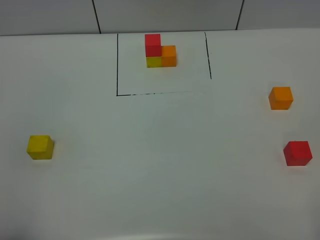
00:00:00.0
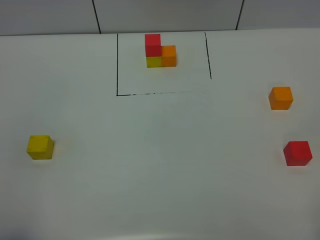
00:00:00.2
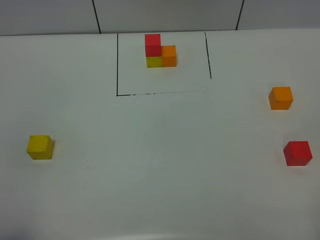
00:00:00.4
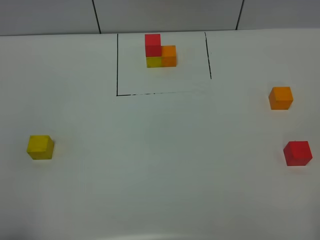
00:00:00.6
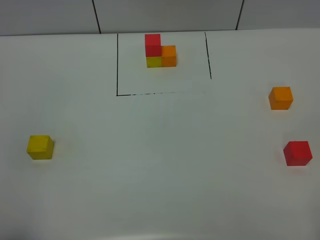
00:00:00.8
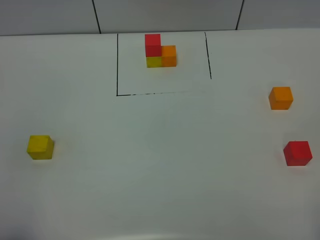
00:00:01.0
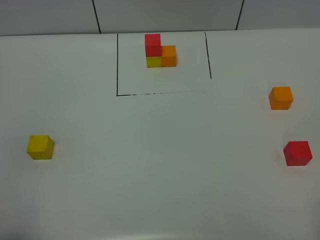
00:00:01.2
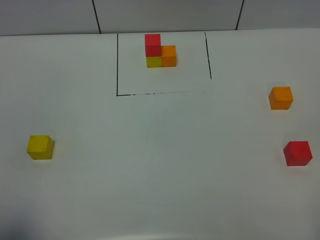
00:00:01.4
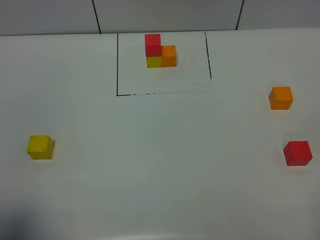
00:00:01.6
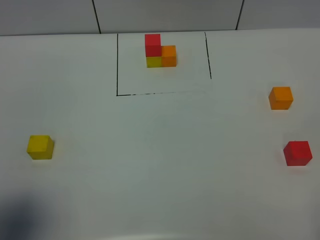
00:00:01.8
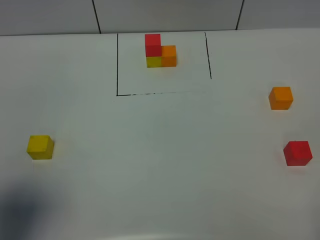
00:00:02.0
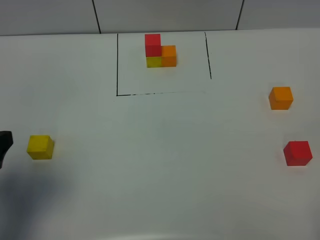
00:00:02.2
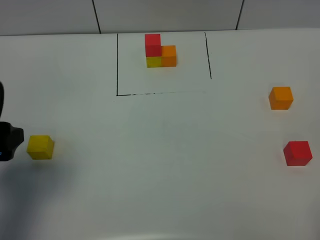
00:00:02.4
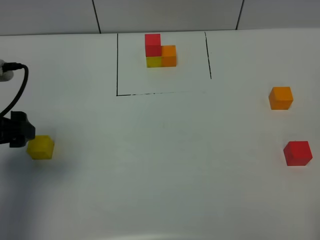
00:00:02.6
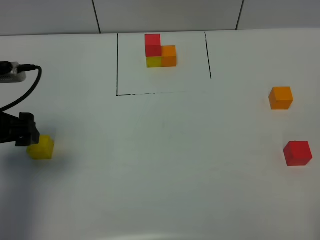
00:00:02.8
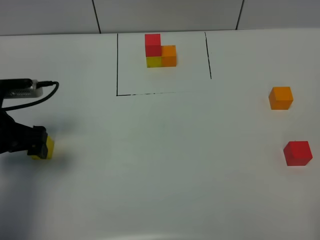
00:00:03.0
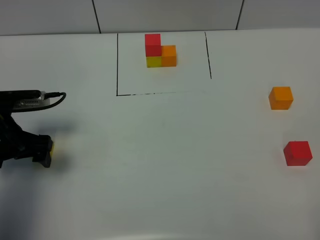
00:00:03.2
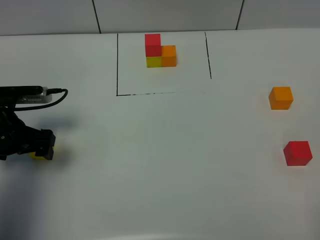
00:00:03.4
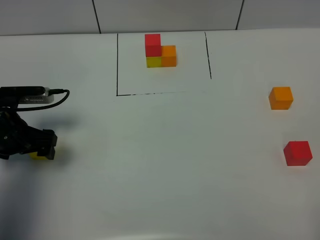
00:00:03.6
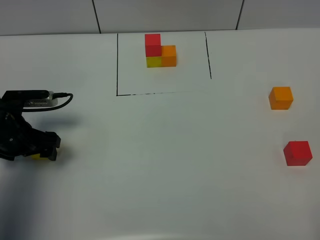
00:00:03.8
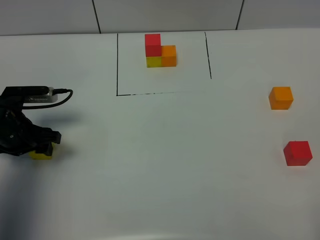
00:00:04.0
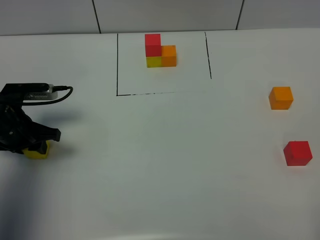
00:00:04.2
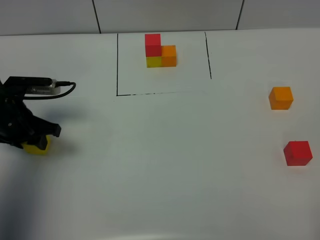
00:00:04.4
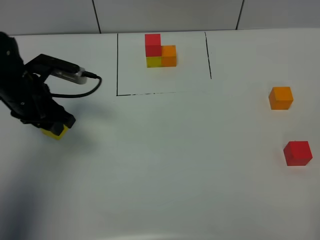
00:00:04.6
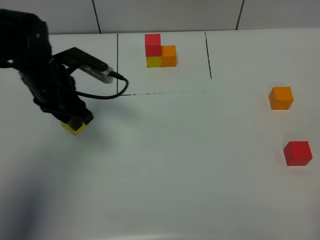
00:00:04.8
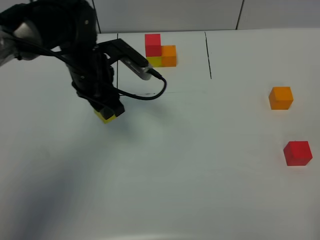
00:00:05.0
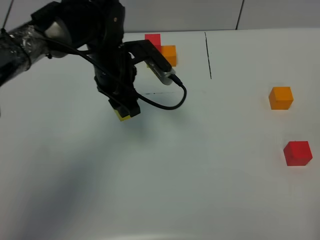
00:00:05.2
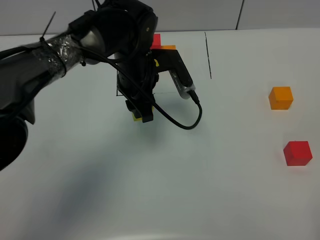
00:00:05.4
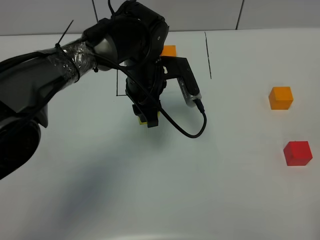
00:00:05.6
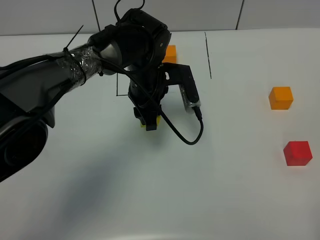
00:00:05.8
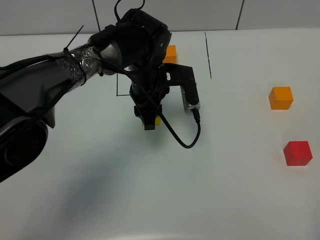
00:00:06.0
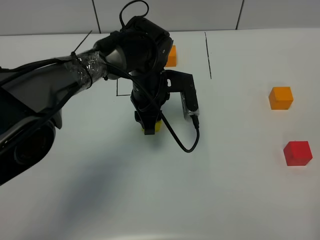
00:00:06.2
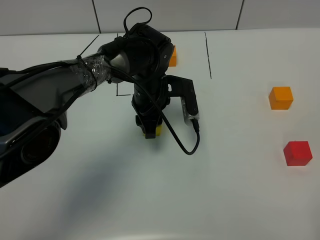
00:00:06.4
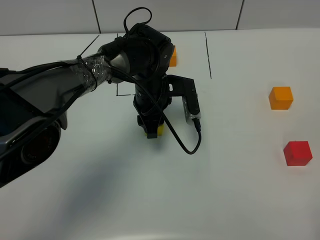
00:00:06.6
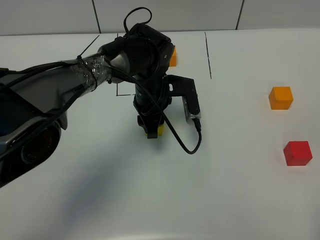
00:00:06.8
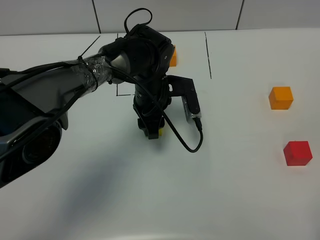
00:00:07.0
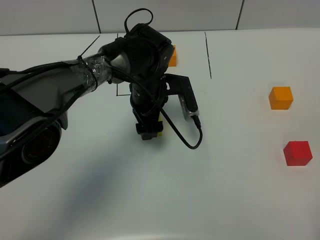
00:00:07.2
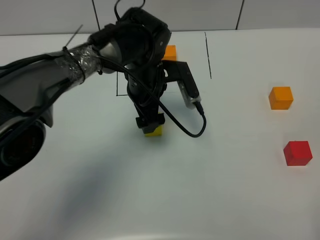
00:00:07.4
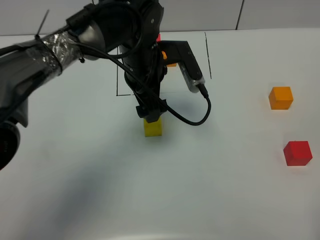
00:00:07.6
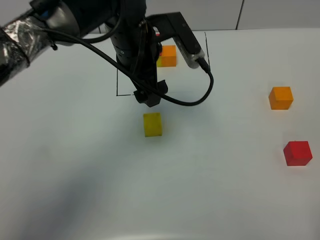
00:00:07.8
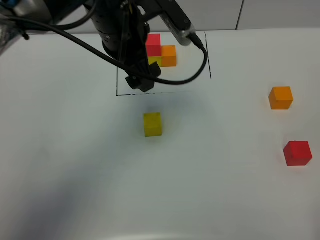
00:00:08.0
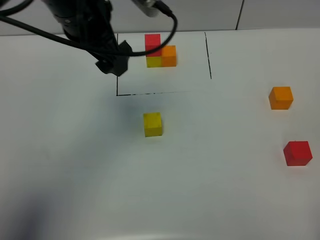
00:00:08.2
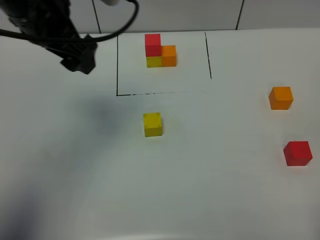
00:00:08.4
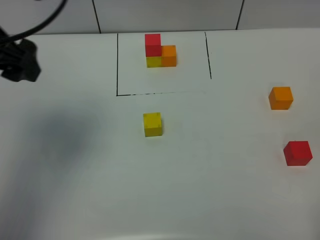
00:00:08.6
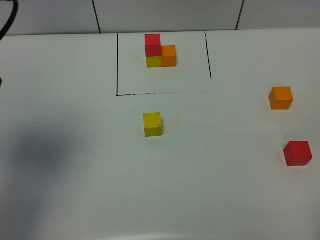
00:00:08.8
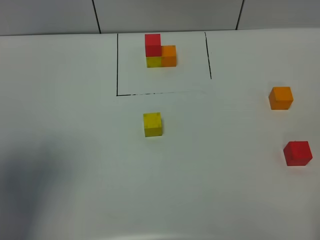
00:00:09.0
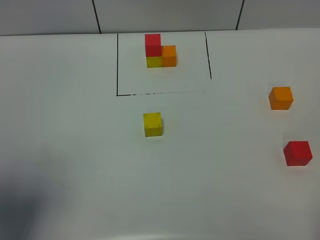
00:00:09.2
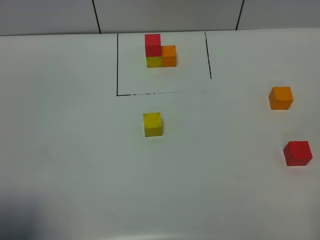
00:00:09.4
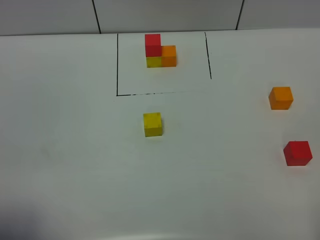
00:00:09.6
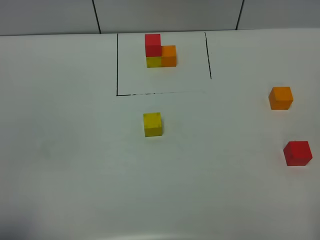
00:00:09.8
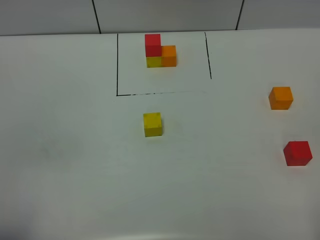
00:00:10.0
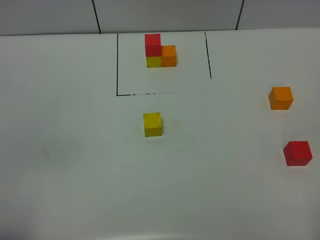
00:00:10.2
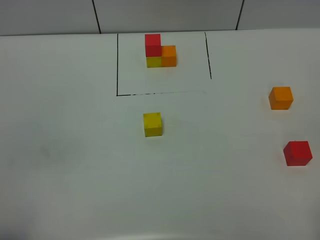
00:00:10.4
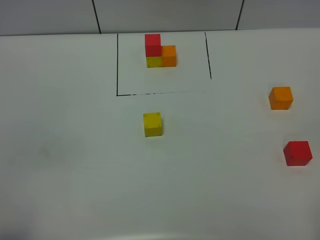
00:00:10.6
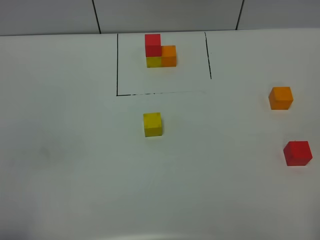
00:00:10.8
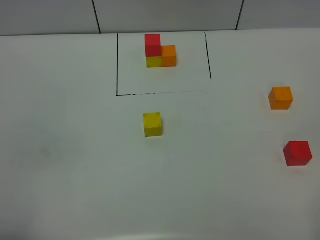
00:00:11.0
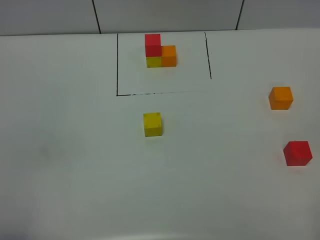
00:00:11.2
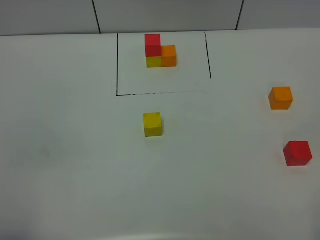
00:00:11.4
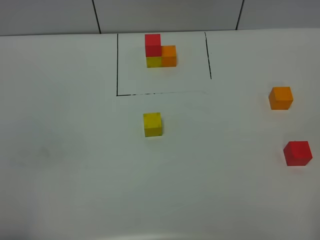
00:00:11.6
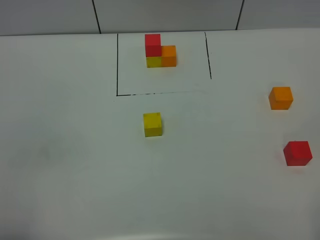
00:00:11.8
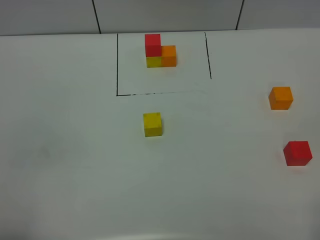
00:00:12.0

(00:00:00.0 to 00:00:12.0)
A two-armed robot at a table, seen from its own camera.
Task of the whole recording: According to the building block template in front, assemble the scattered blocks together.
Step, 00:00:00.0 - 00:00:07.4: Put the yellow build block in the center of the table.
00:00:00.0 - 00:00:01.6: The grippers stay close to where they were, moving slightly.
00:00:01.6 - 00:00:03.0: The left gripper travels forward and downward by roughly 25 cm, and opens.
00:00:03.0 - 00:00:04.4: The left gripper changes place by some 5 cm, and closes up.
00:00:04.4 - 00:00:06.0: The left gripper travels to the right by about 25 cm.
00:00:06.0 - 00:00:07.6: The left gripper is displaced upward by approximately 5 cm, and opens up.
00:00:07.6 - 00:00:09.0: The left gripper travels to the left, backward and upward by about 35 cm.
00:00:09.0 - 00:00:10.4: The left gripper shifts roughly 20 cm backward and downward.

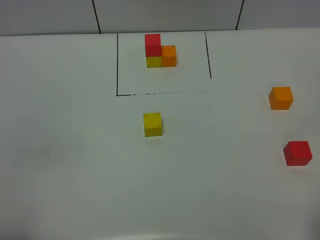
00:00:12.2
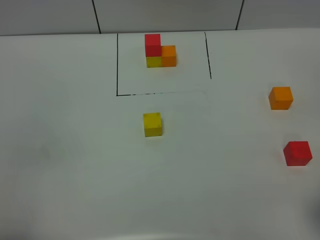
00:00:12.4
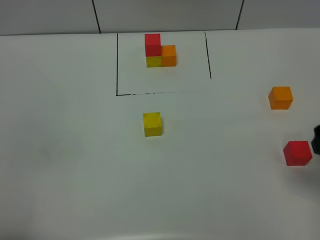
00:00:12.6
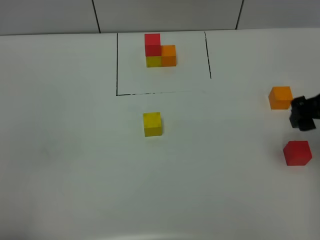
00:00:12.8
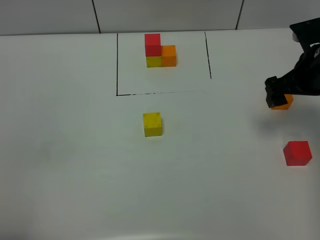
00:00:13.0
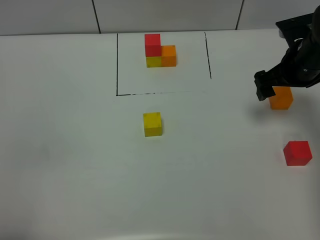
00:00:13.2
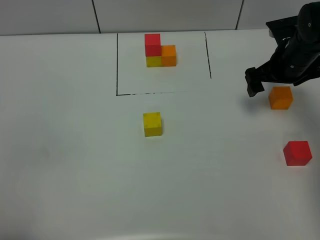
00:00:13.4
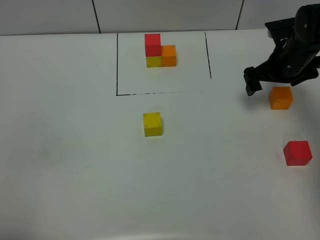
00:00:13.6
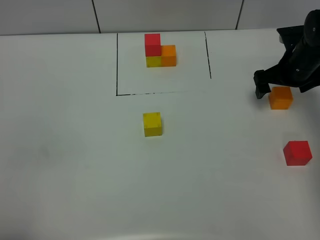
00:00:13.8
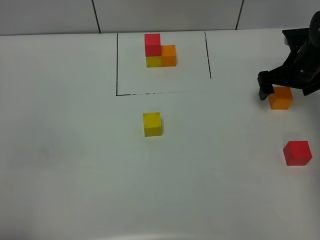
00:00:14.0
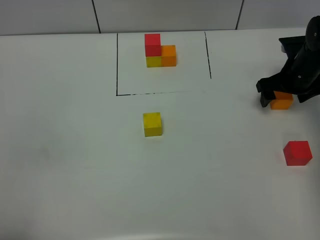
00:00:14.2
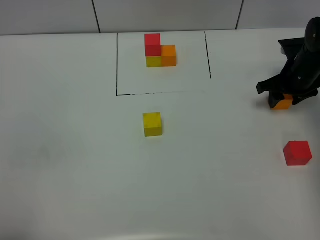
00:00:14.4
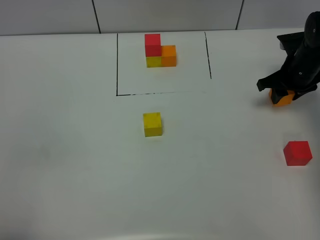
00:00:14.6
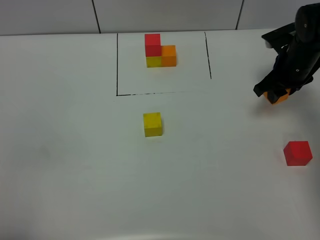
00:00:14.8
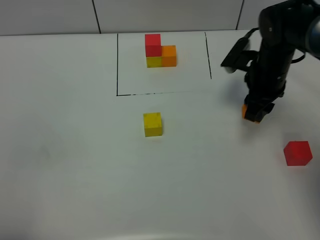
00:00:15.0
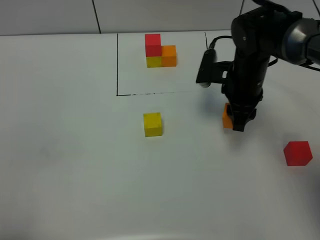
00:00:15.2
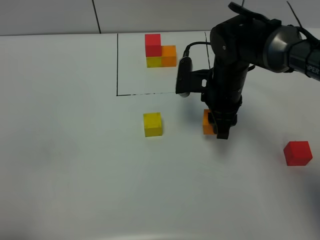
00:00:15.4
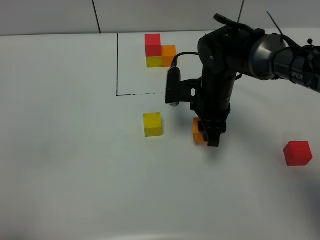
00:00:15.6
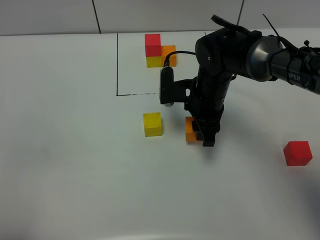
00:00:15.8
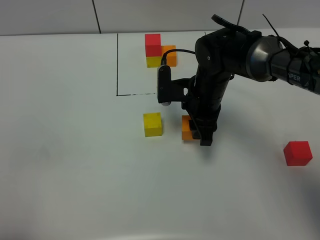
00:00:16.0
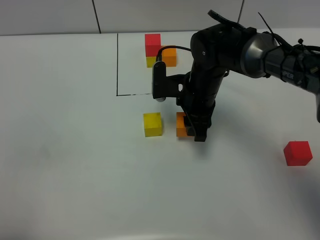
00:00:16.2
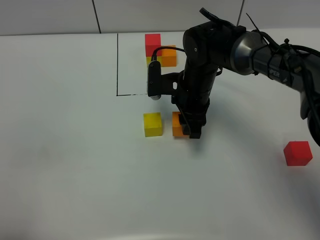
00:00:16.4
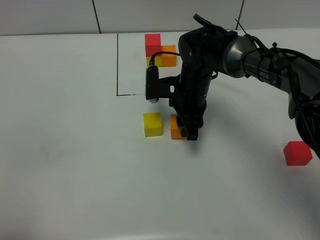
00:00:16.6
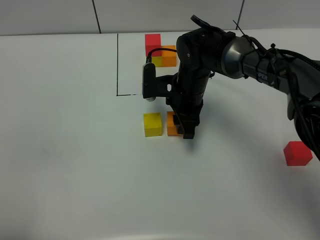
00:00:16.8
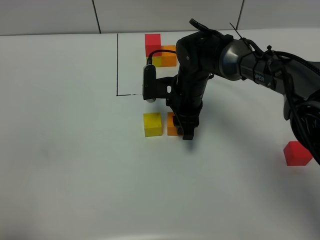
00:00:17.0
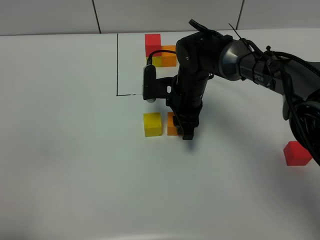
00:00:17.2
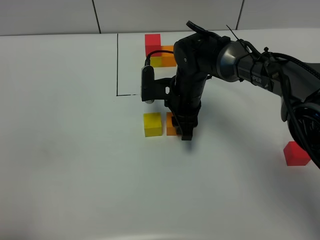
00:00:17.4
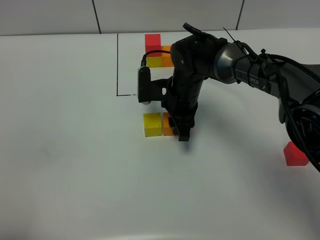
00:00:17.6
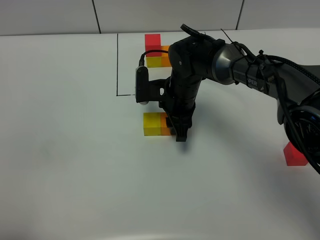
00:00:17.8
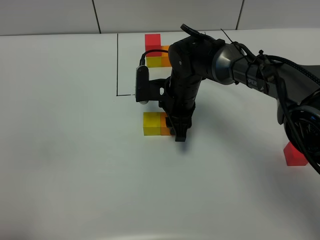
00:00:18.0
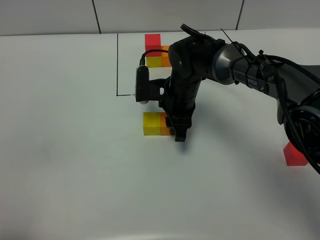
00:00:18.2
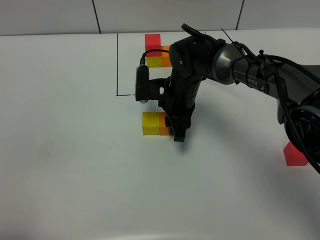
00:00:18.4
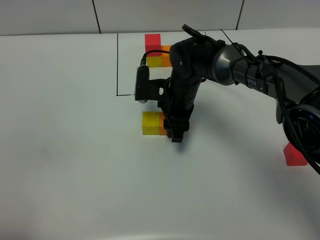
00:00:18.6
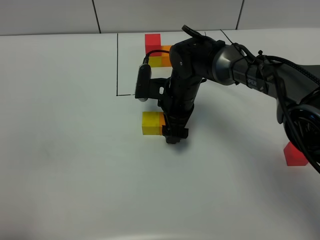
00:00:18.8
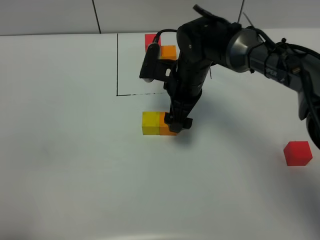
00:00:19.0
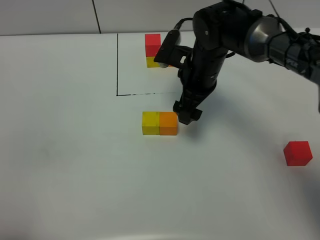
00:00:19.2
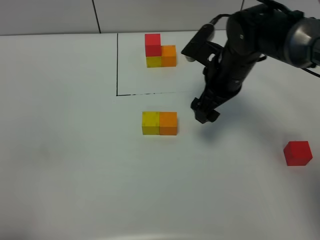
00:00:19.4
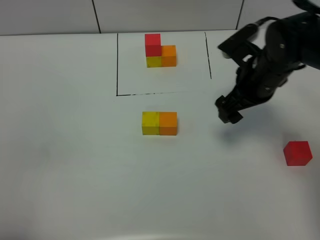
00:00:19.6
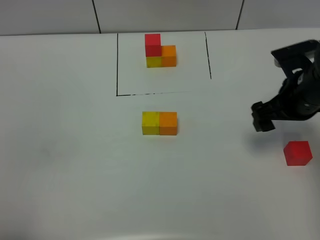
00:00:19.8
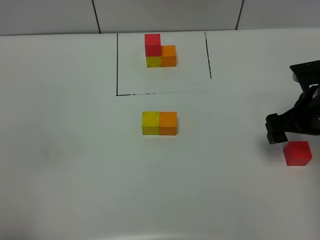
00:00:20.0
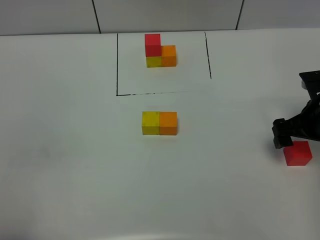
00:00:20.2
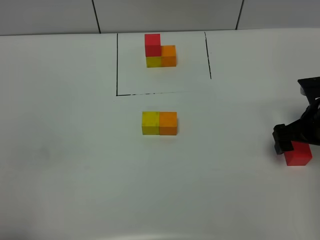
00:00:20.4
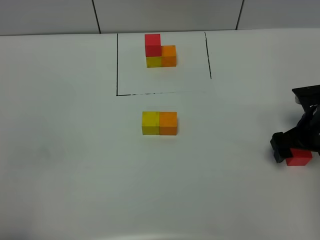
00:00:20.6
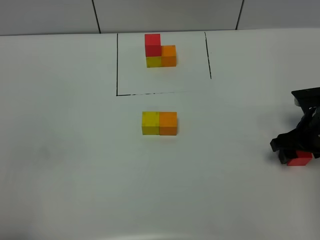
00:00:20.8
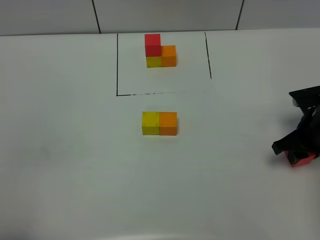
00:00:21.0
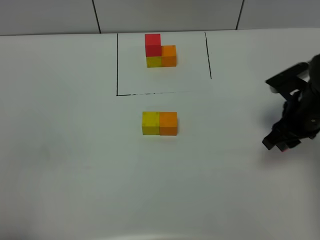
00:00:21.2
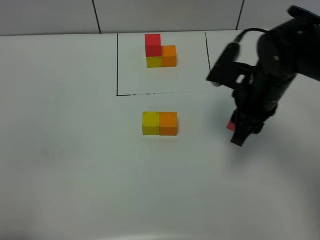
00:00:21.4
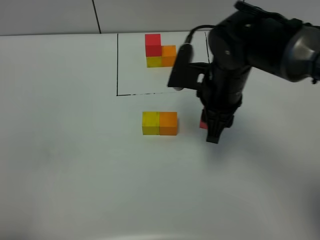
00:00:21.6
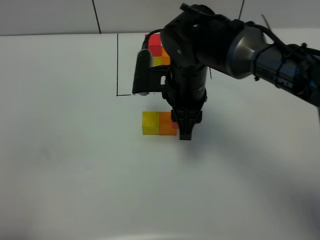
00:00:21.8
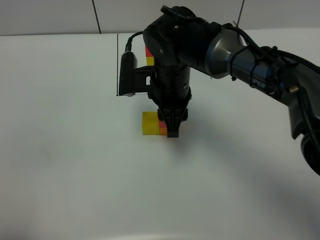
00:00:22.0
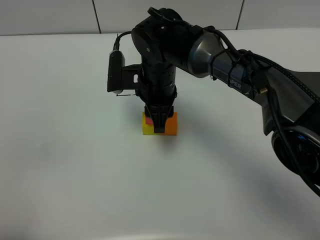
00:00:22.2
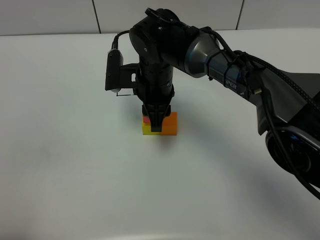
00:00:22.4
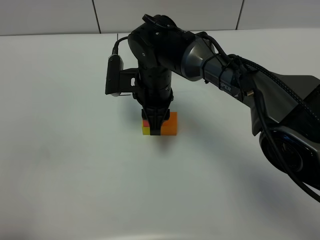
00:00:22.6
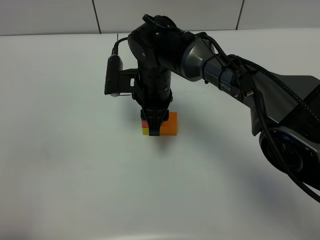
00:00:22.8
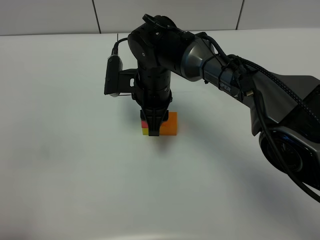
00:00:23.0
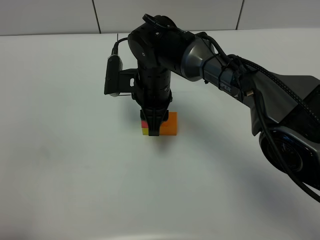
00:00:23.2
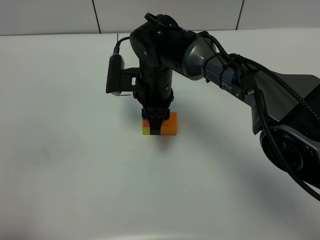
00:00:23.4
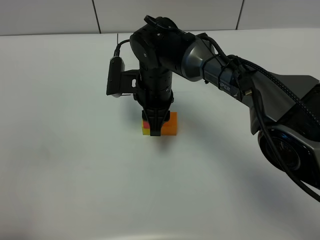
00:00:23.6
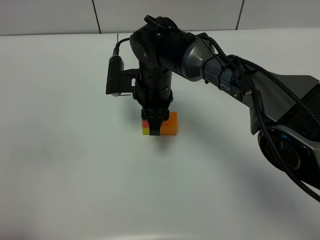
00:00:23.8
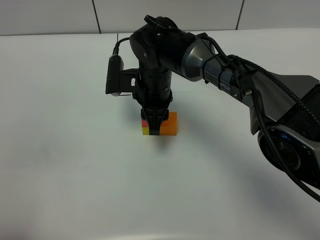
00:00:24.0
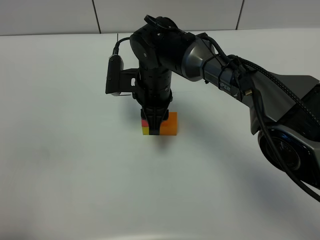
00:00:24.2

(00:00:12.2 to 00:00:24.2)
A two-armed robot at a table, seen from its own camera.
Task of the whole recording: According to the building block template in front, assemble the scattered blocks together.
Step, 00:00:12.2 - 00:00:19.0: Put the orange build block on the right of the yellow build block.
00:00:12.2 - 00:00:13.8: The right gripper goes some 35 cm forward.
00:00:13.8 - 00:00:15.2: The right gripper is displaced to the left by approximately 15 cm, and closes its fingers.
00:00:15.2 - 00:00:16.6: The right gripper is displaced to the left by some 10 cm.
00:00:16.6 - 00:00:18.2: There are only small adjustments of the grippers.
00:00:18.2 - 00:00:19.8: The right gripper travels to the right and backward by some 20 cm, and opens up.
00:00:19.8 - 00:00:21.2: The right gripper closes its fingers.
00:00:21.2 - 00:00:22.6: The right gripper is displaced to the left by approximately 25 cm.
00:00:22.6 - 00:00:24.2: The two grippers keep their place.
